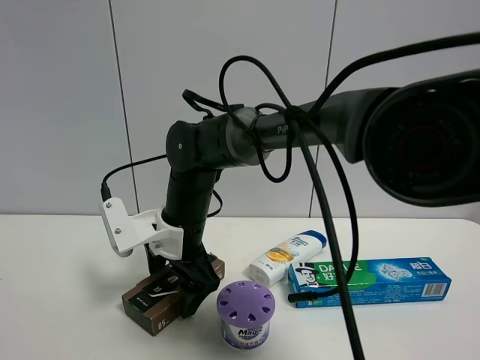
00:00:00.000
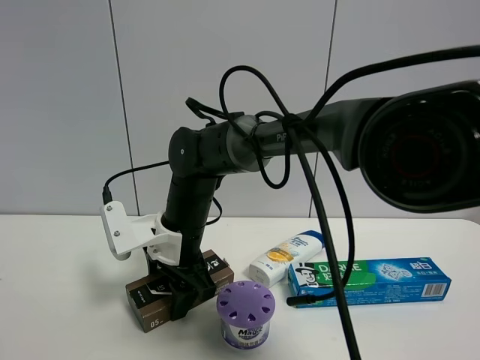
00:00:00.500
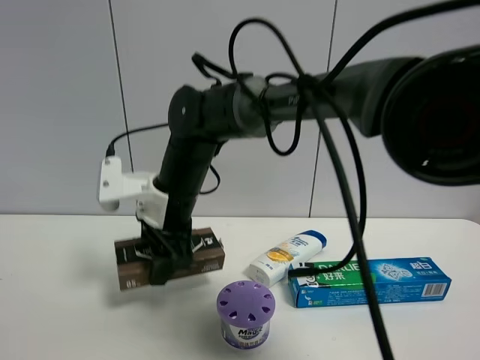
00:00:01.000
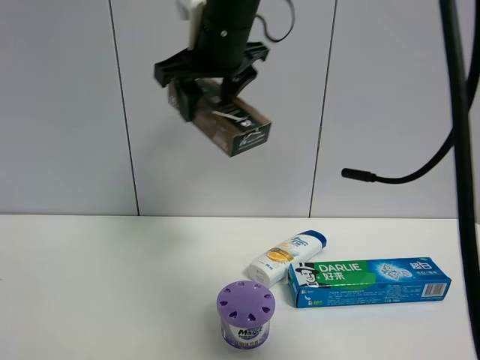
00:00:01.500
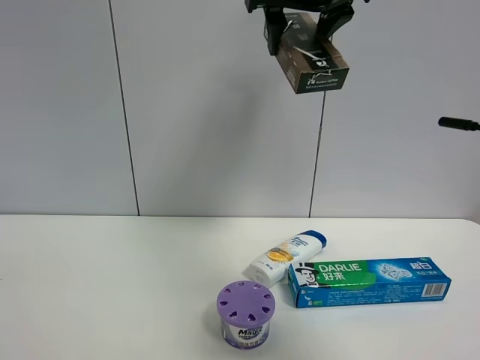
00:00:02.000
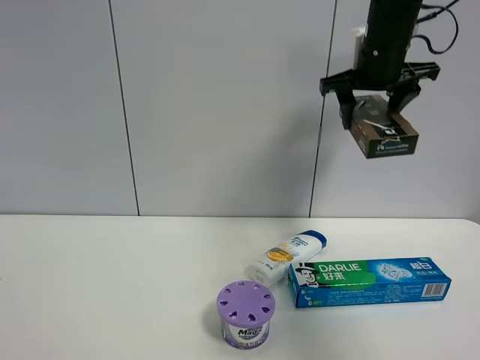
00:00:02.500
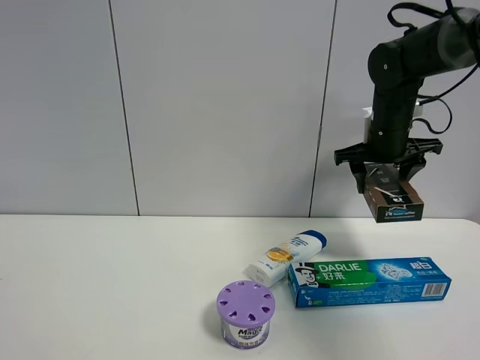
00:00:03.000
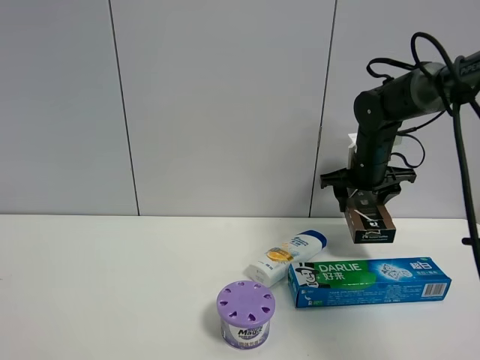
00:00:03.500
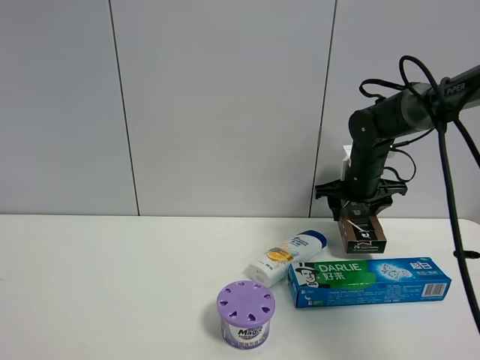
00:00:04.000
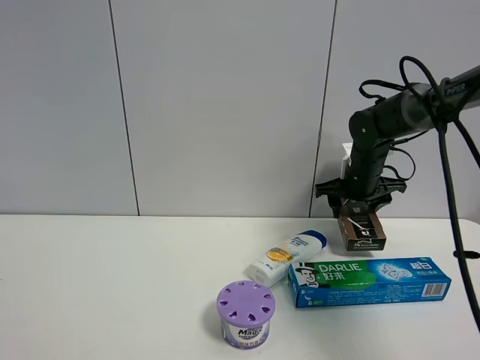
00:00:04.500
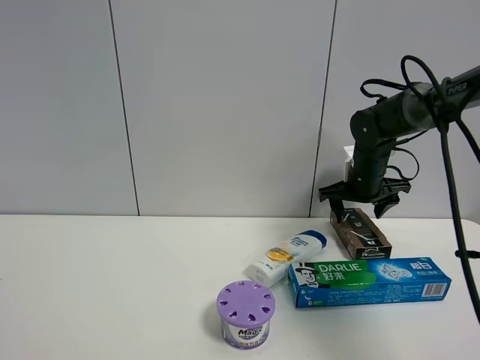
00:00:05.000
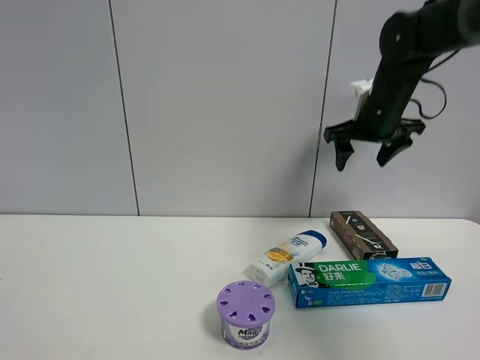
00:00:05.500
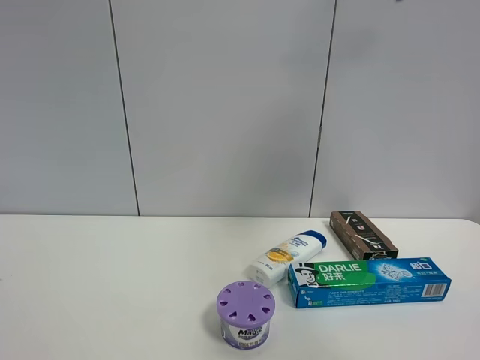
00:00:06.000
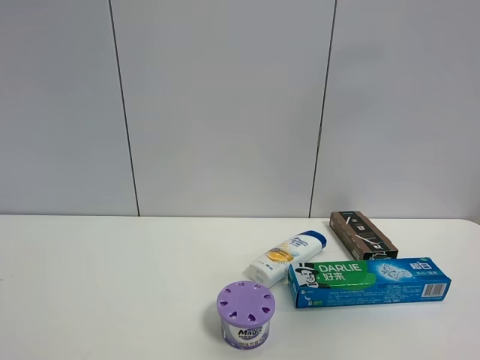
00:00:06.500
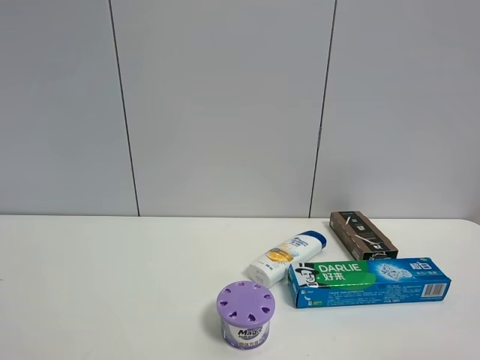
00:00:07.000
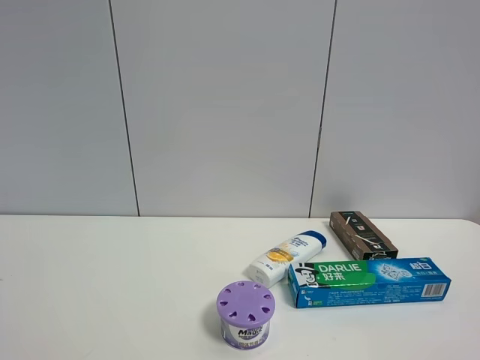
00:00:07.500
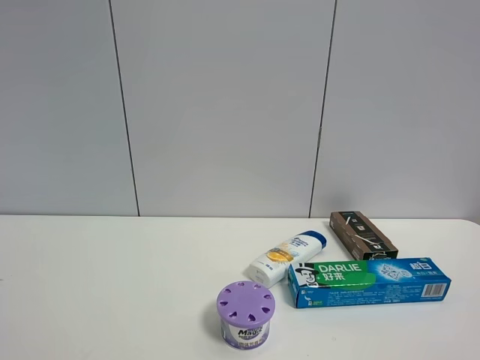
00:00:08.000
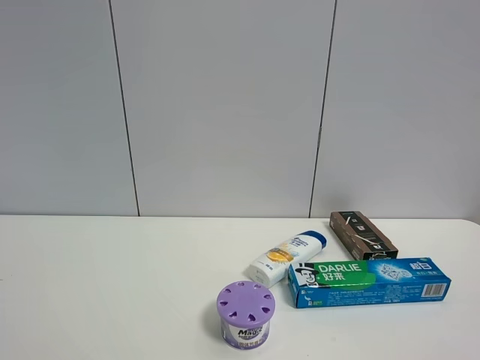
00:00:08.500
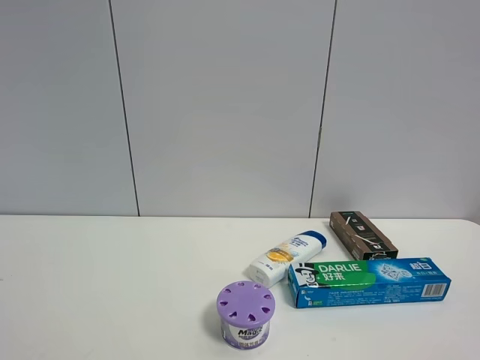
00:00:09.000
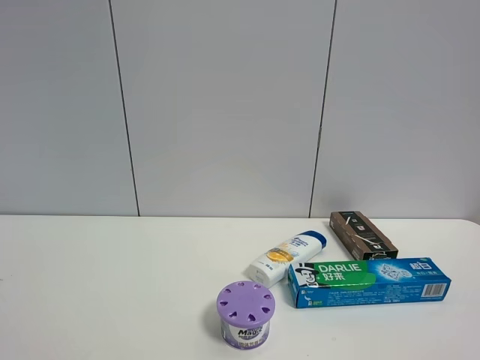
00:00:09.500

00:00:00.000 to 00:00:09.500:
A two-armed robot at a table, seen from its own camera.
Task of the whole recording: the gripper move the object.
Step, 00:00:01.000 to 00:00:05.000: Place the Luckin Coffee box on the table with the right gripper.
00:00:00.000 to 00:00:02.000: The right gripper moves upward and to the right, roughly 35 cm, and closes its fingers.
00:00:02.000 to 00:00:04.000: The right gripper is displaced downward and to the right by about 30 cm.
00:00:04.000 to 00:00:05.500: The right gripper travels upward by about 15 cm, and opens.
00:00:05.500 to 00:00:07.500: The right gripper shifts approximately 50 cm backward, and opens its fingers.

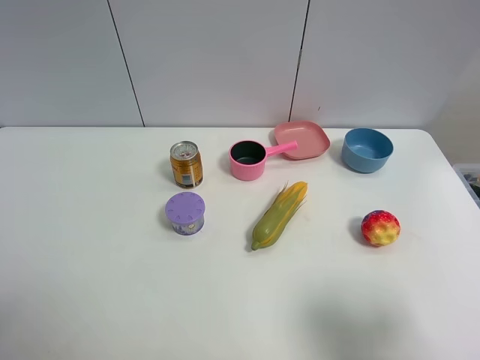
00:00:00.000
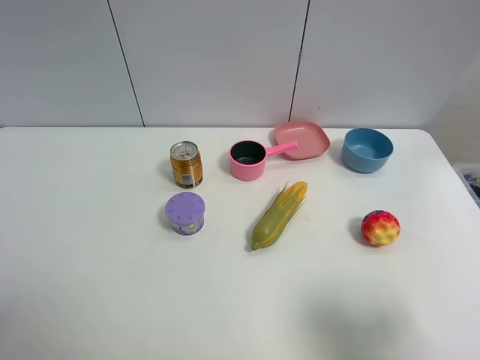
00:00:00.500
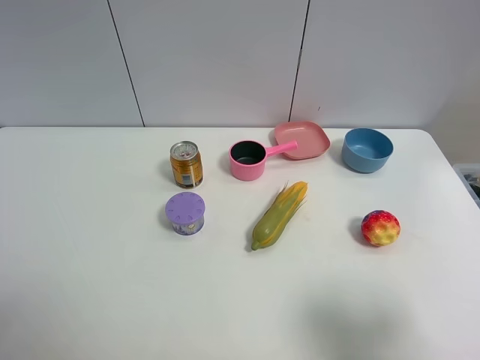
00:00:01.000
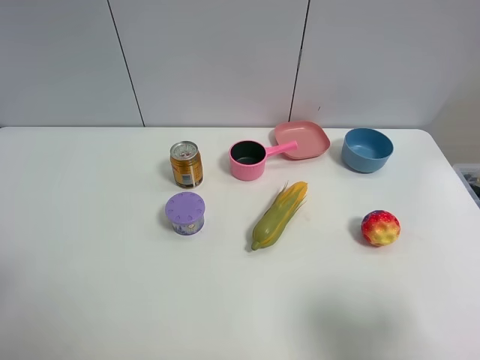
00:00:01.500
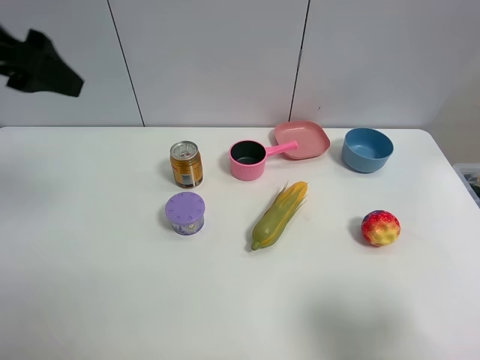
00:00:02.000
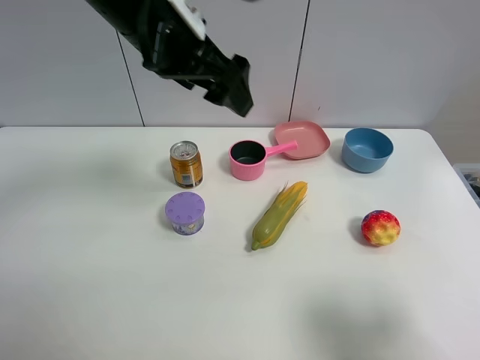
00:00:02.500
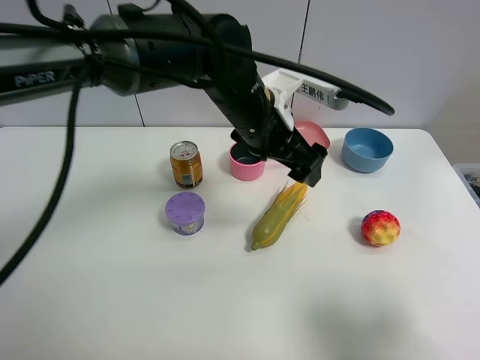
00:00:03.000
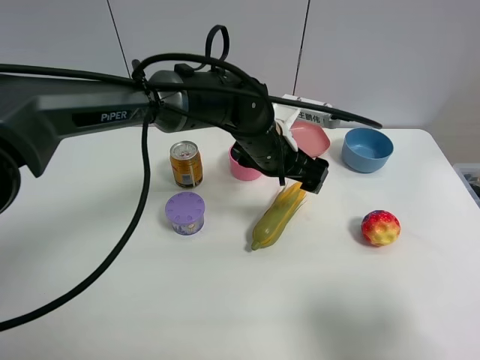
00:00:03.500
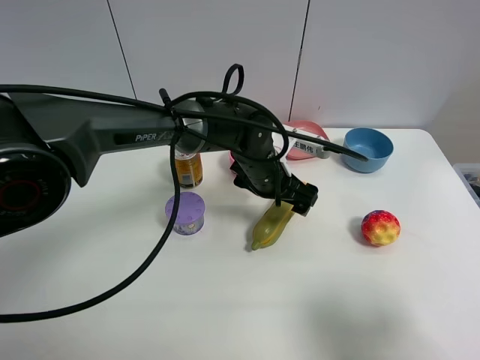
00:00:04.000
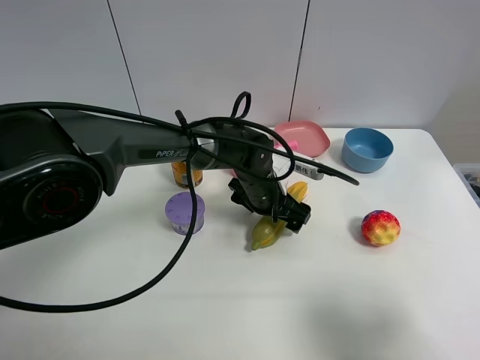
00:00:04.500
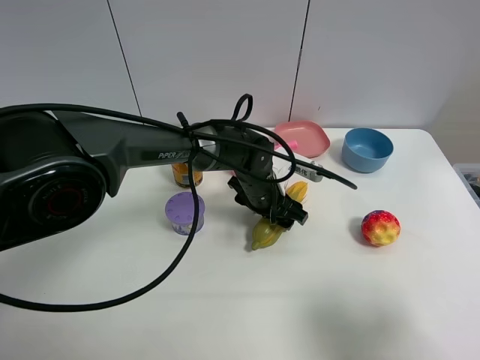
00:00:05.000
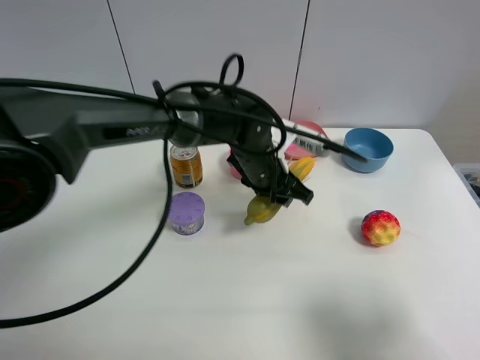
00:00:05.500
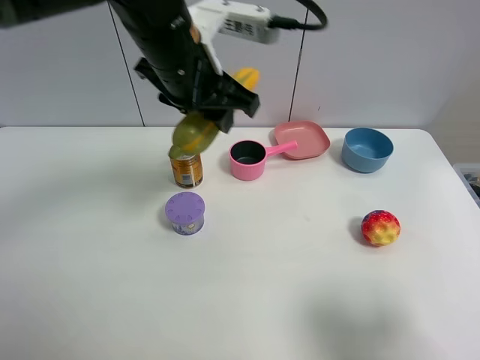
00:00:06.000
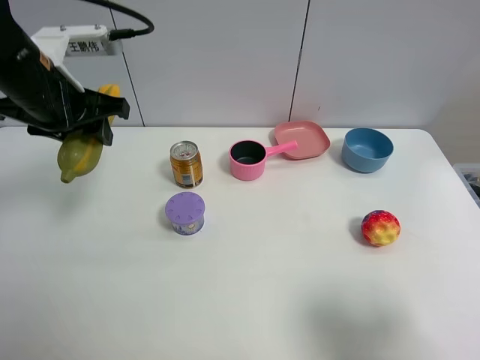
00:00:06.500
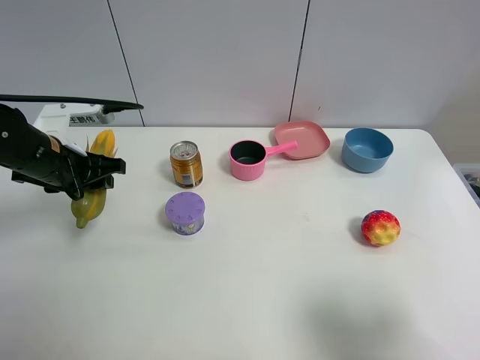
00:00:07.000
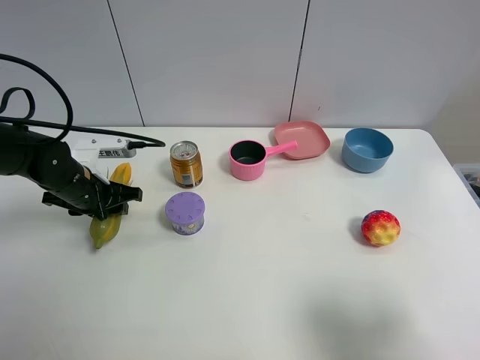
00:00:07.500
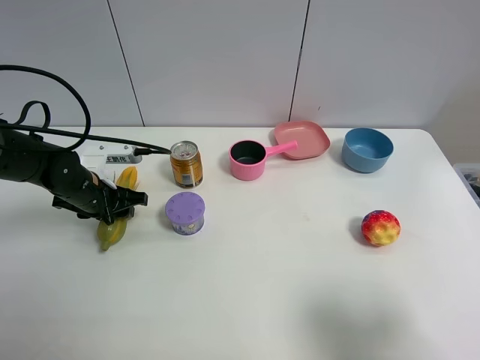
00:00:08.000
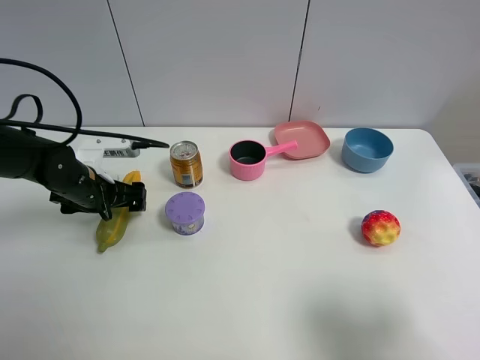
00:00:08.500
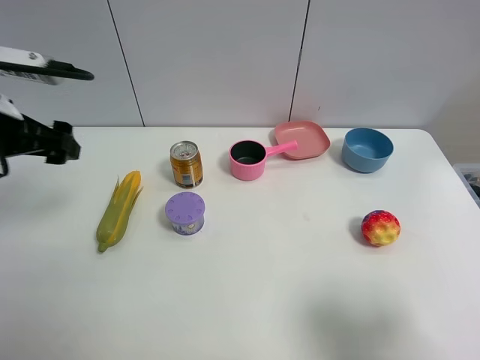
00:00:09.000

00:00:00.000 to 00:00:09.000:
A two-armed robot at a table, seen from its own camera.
Task of the whole recording: the gripper move the object.
Step, 00:00:00.000 to 00:00:05.000: Grasp the corn with the left gripper.
Step, 00:00:05.500 to 00:00:08.000: Place the corn on the table with the left gripper.
00:00:00.000 to 00:00:02.000: The left gripper is displaced forward and upward by about 30 cm.
00:00:02.000 to 00:00:04.500: The left gripper travels downward and to the right by approximately 40 cm.
00:00:04.500 to 00:00:07.000: The left gripper shifts about 30 cm to the left, and closes its fingers.
00:00:07.000 to 00:00:09.000: The left gripper is displaced upward by about 10 cm, and opens.

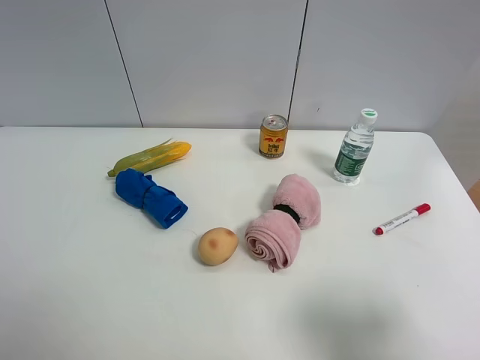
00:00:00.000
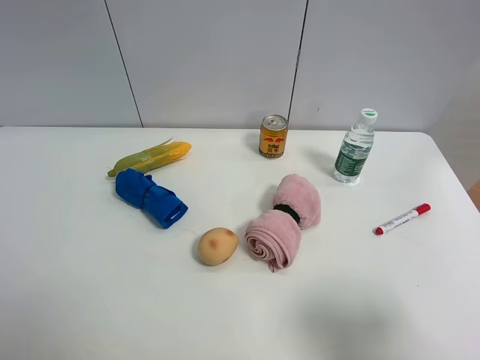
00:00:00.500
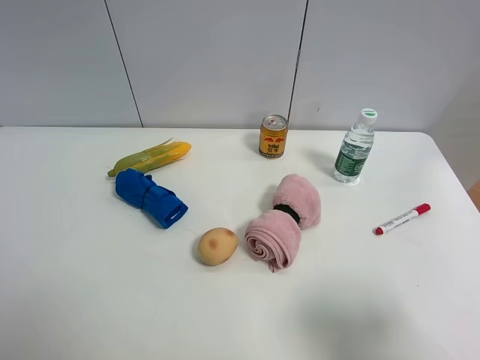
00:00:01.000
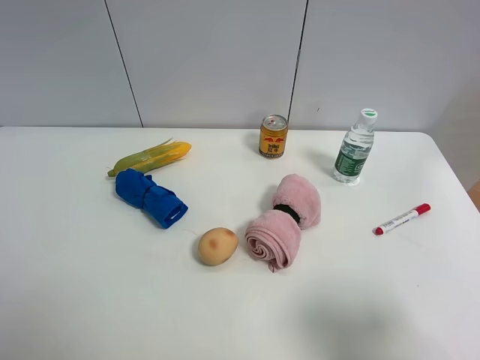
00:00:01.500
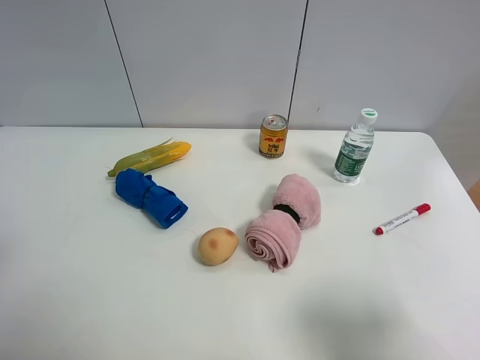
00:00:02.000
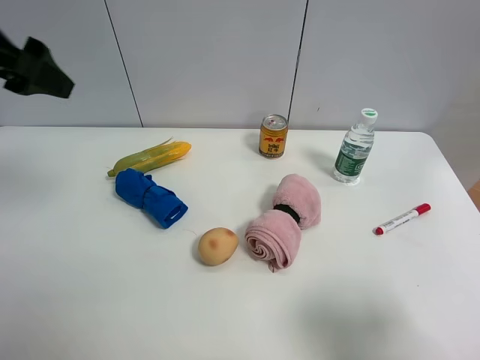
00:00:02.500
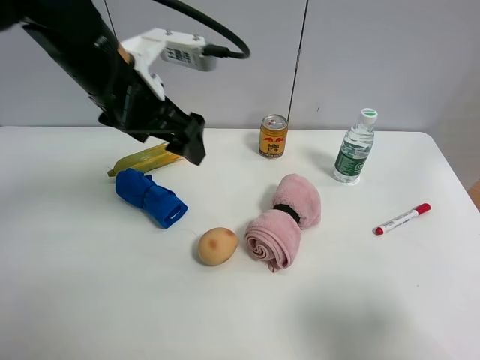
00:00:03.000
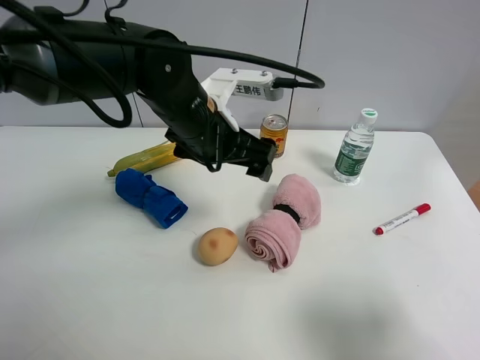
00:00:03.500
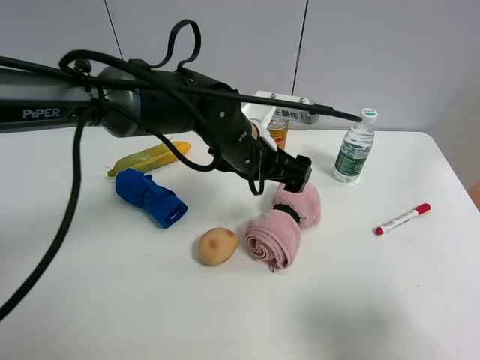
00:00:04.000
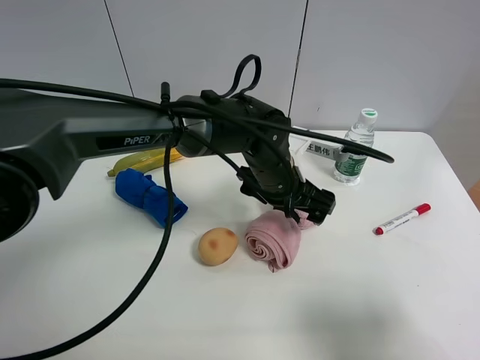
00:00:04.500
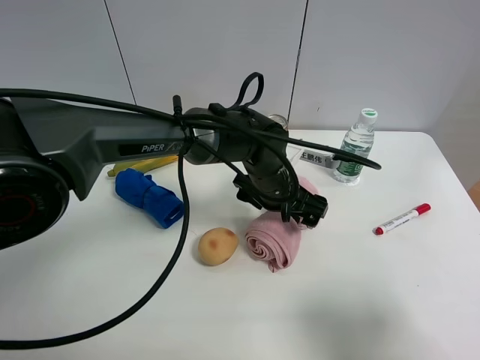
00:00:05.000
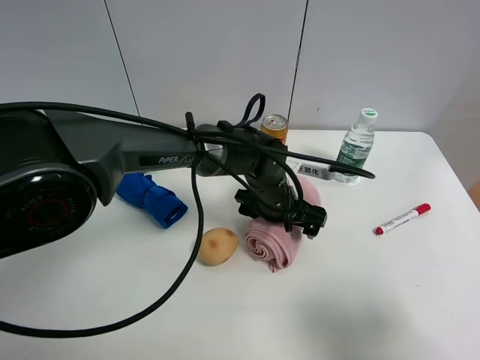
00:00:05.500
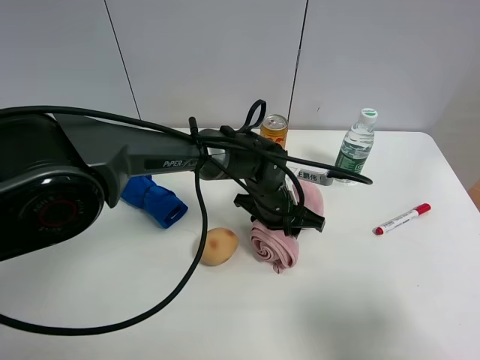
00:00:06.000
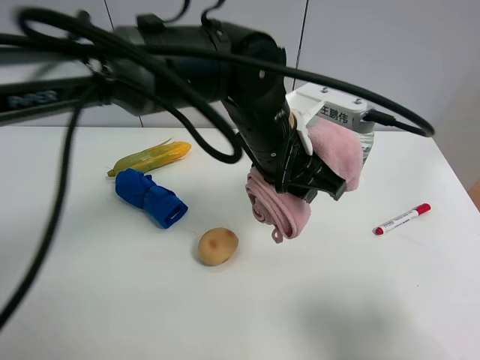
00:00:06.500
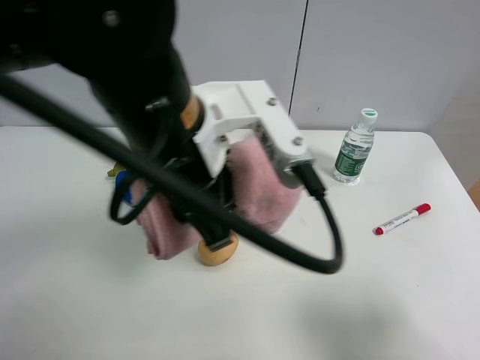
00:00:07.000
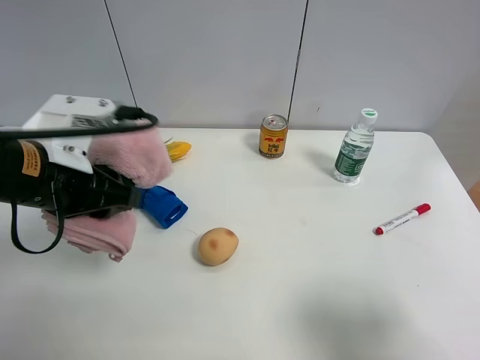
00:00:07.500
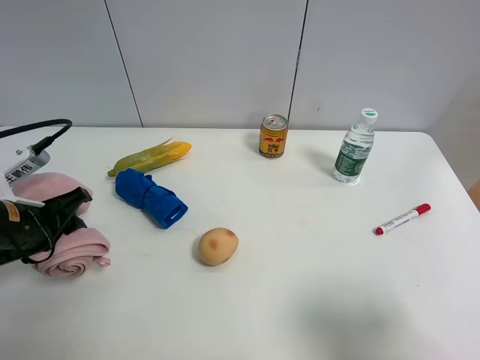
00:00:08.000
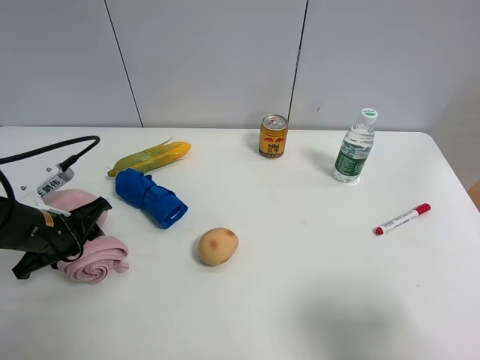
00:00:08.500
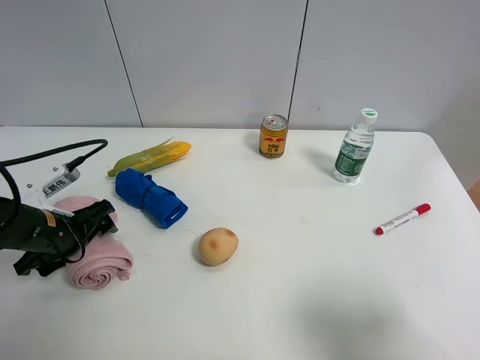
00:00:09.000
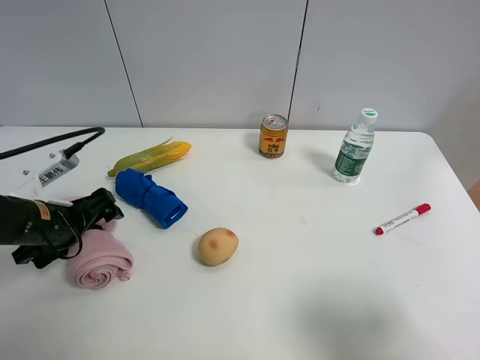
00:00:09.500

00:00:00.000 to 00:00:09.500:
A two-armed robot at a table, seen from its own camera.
Task of the whole recording: the gripper move the object.
Step, 00:00:00.000 to 00:00:06.000: Grasp the pink towel with the left gripper.
00:00:02.000 to 00:00:04.000: The left gripper travels to the right, forward and downward by roughly 40 cm.
00:00:04.000 to 00:00:05.500: The left gripper moves downward, some 10 cm.
00:00:05.500 to 00:00:07.500: The left gripper is displaced to the left, upward and backward by approximately 30 cm, and closes its fingers.
00:00:07.500 to 00:00:09.500: The left gripper heads downward and to the left, covering approximately 10 cm, and opens.
